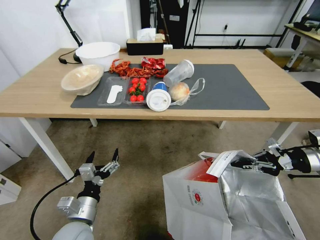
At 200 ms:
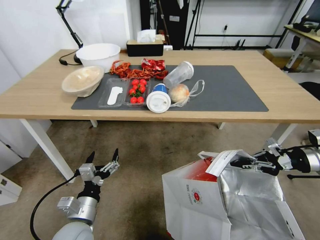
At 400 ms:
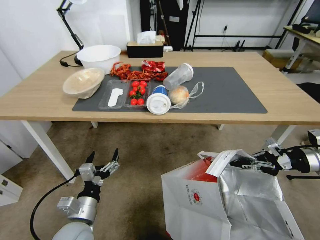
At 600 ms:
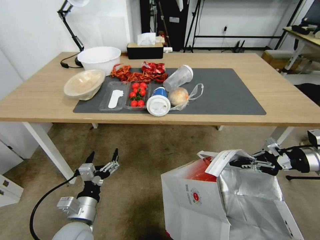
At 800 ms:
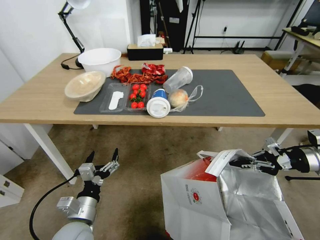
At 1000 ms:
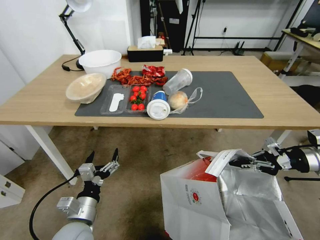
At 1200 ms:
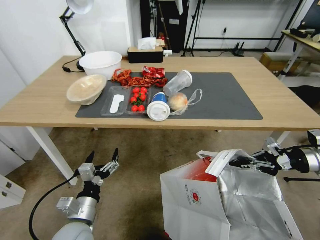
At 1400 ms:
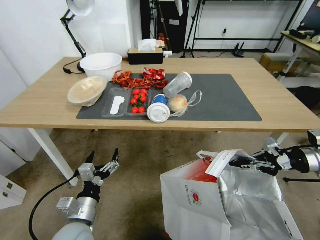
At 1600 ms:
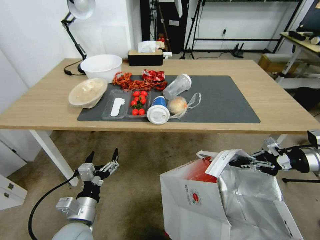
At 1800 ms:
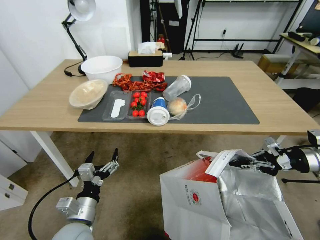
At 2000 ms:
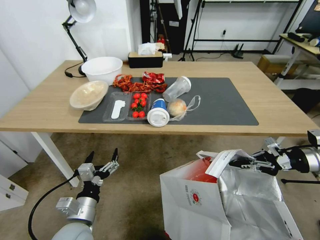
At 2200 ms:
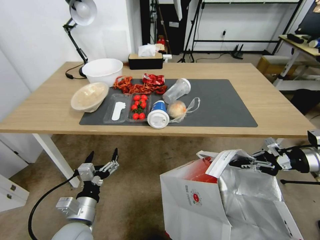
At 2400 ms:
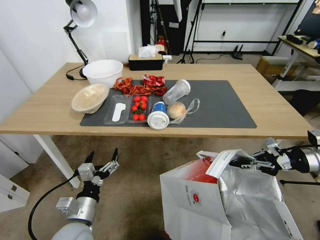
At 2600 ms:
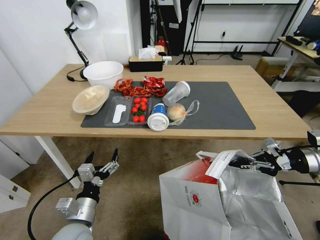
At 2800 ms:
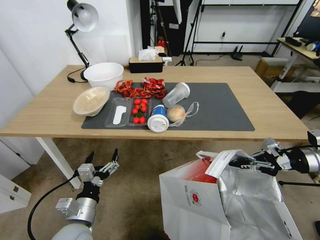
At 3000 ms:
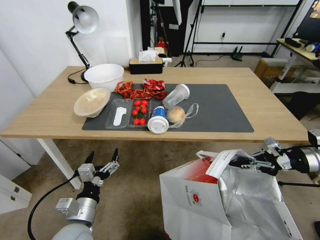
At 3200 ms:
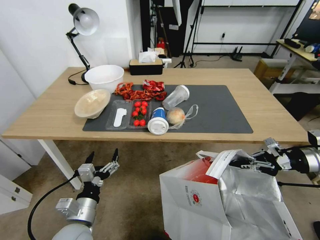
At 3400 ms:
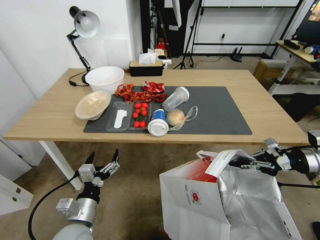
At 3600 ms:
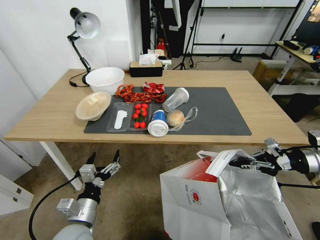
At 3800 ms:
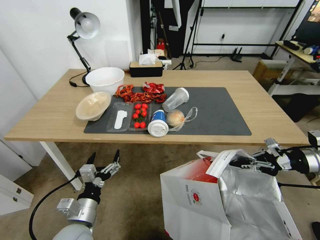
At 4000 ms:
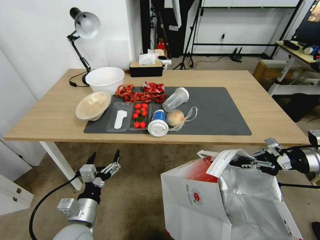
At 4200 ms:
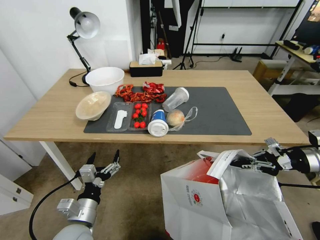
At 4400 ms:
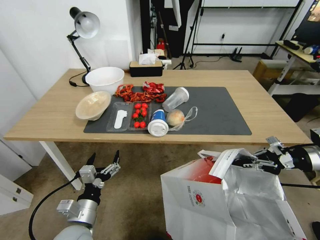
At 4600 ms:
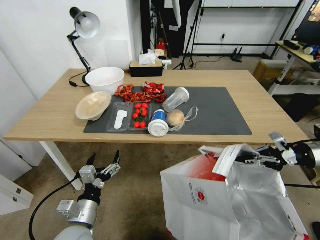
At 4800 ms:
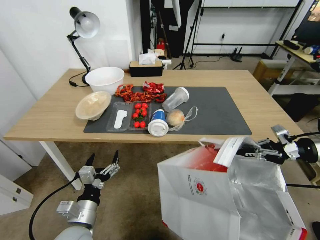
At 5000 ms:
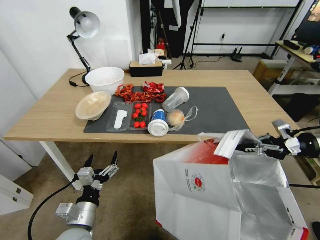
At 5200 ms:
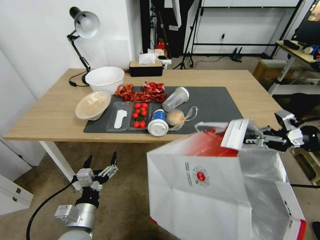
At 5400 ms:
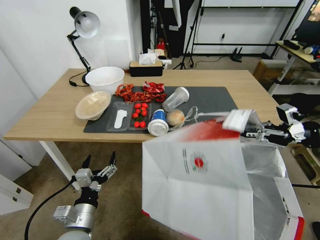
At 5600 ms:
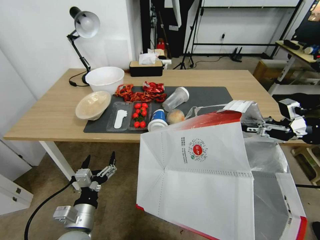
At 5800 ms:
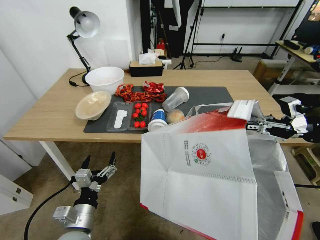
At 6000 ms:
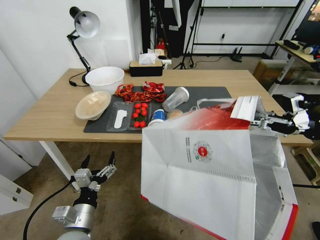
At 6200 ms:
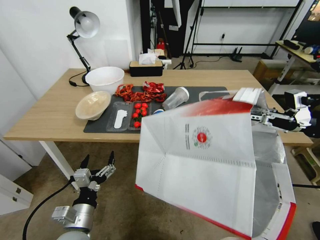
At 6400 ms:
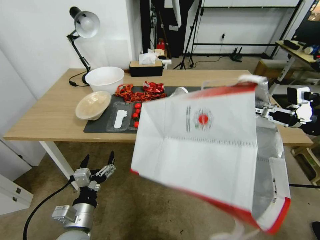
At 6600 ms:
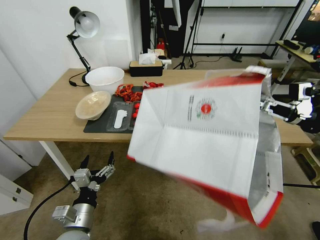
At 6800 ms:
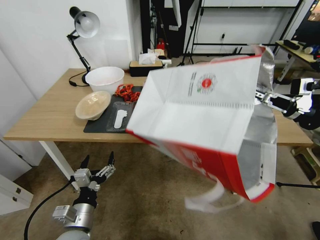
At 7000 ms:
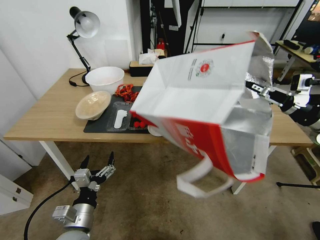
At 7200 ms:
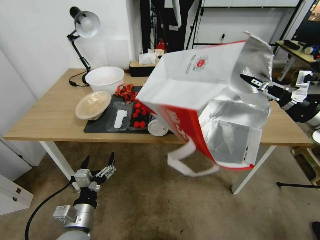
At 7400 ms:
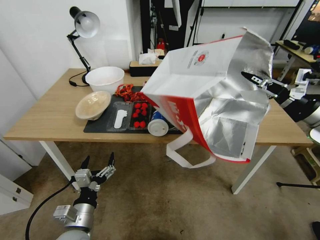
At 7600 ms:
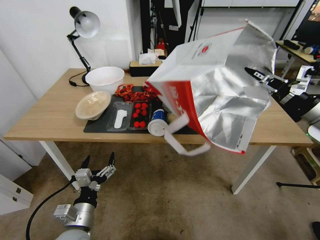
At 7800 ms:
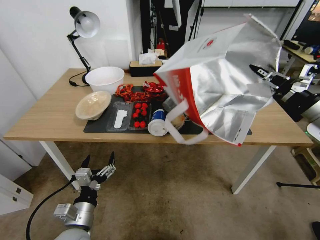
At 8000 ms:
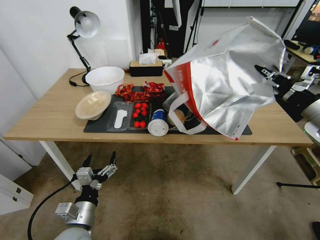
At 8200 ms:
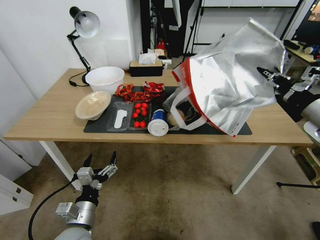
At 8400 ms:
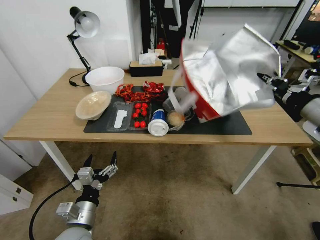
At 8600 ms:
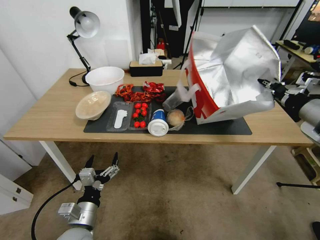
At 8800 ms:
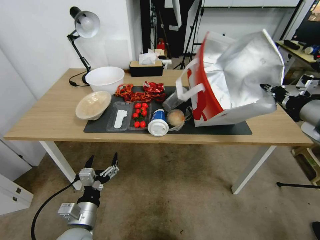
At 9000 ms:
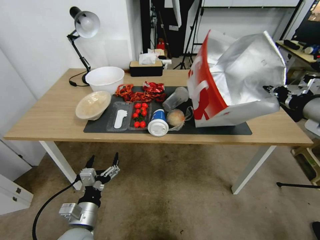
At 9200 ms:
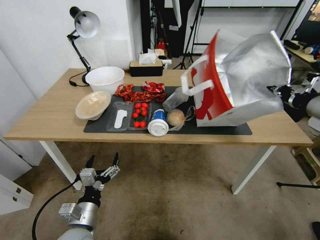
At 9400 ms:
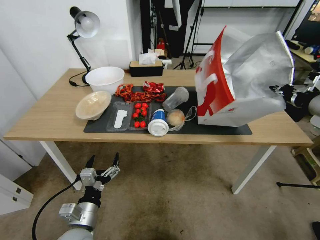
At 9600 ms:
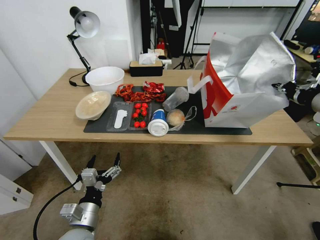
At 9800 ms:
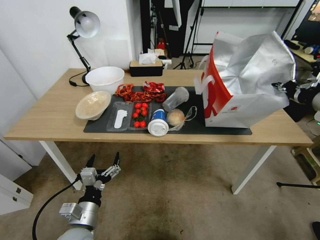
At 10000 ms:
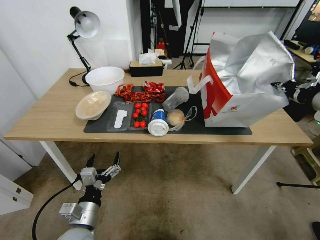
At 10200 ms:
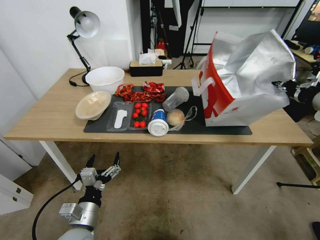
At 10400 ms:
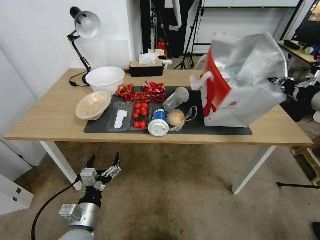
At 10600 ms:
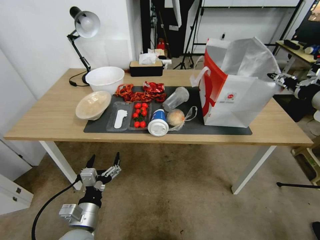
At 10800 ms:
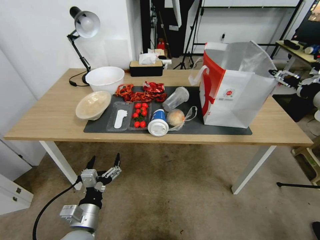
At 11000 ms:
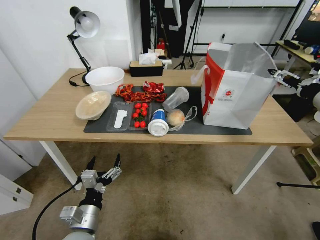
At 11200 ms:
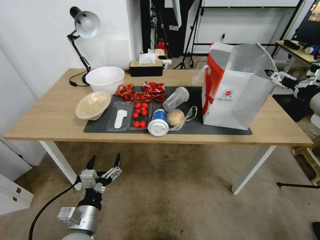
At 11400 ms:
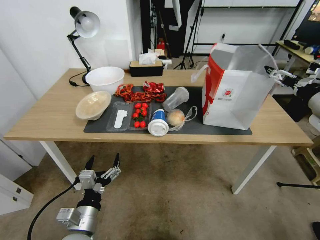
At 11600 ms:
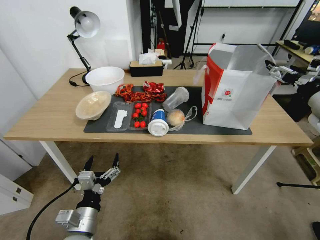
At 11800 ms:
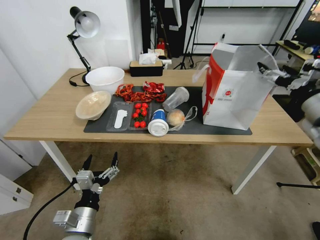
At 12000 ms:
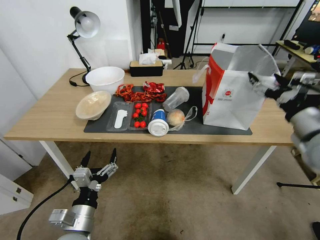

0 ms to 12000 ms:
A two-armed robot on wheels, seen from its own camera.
Task of the whole recording: Pick up the food delivery bag from the floor and place it on the table.
3000 ms to 4400 ms: Neither gripper changes place.
4400 ms to 6000 ms: The right gripper moves upward, some 10 cm.
7600 ms to 9000 ms: The right gripper shifts by approximately 5 cm.
9000 ms to 10400 ms: The grippers move only a little.
10400 ms to 12000 ms: The right gripper heads downward, covering approximately 10 cm, and opens.

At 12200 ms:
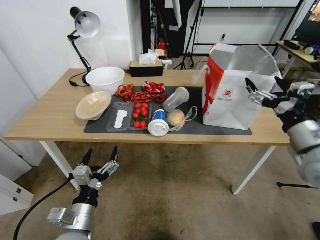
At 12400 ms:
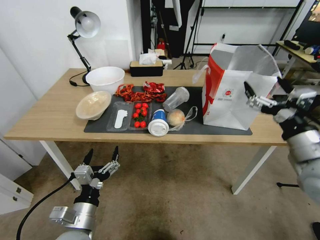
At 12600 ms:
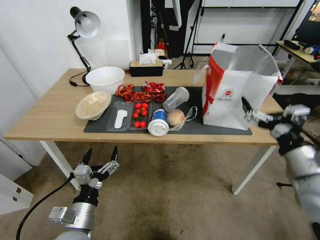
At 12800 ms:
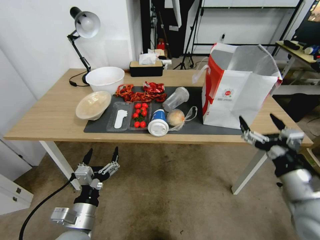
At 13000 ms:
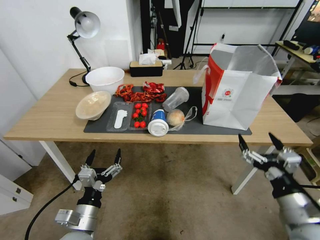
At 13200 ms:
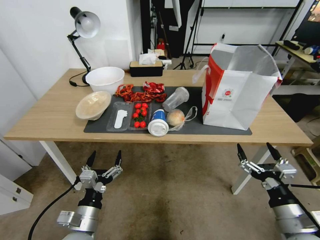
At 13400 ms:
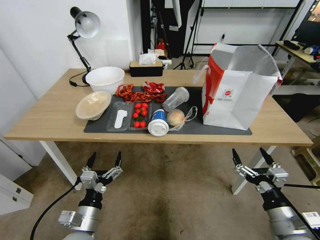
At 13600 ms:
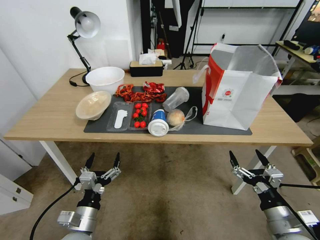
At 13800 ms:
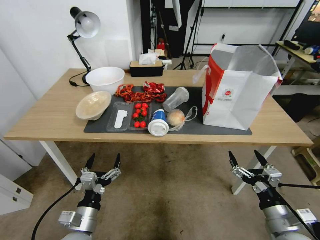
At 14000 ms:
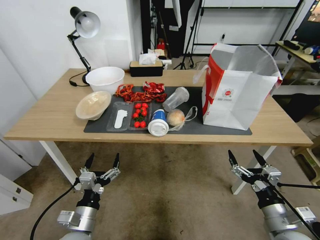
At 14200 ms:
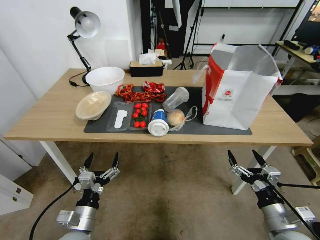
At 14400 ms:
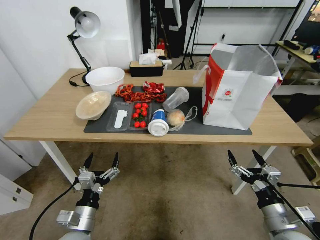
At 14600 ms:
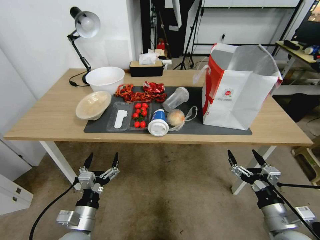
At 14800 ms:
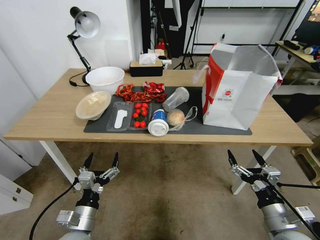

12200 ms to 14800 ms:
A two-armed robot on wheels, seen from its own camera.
Task of the whole recording: Pick up the food delivery bag from the floor and place it on the table.
12200 ms to 13400 ms: The right gripper goes roughly 20 cm downward and backward.
13400 ms to 14800 ms: The grippers make only small movements.

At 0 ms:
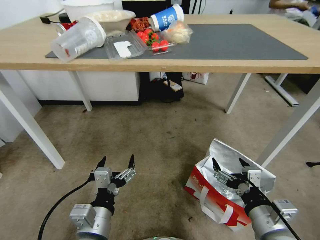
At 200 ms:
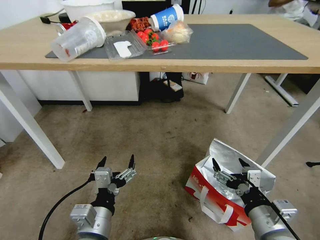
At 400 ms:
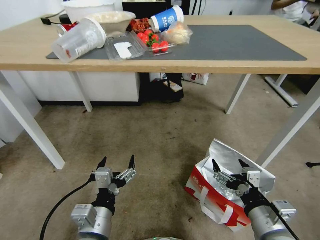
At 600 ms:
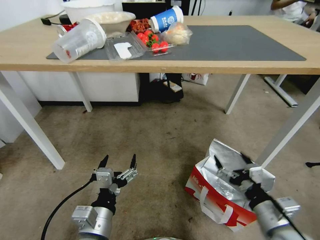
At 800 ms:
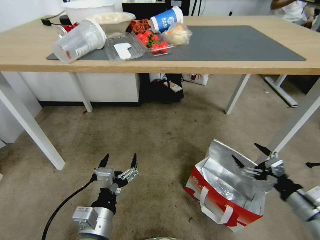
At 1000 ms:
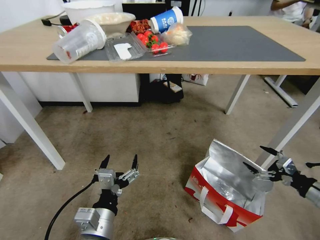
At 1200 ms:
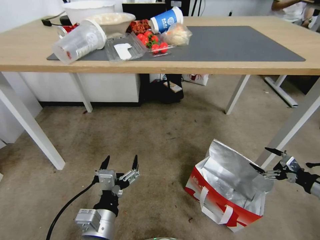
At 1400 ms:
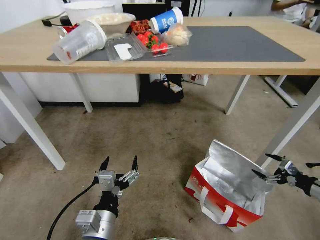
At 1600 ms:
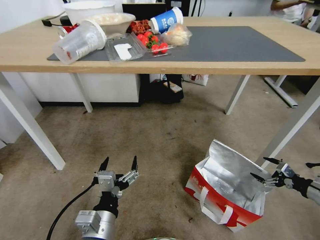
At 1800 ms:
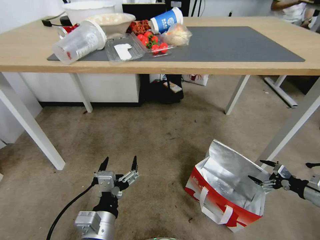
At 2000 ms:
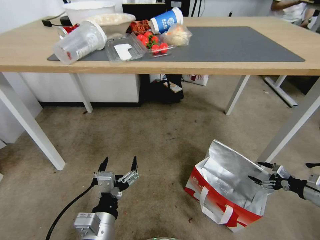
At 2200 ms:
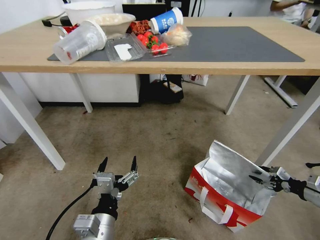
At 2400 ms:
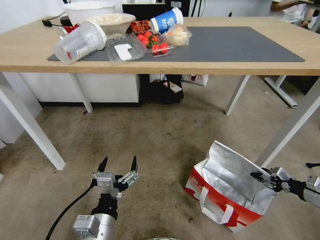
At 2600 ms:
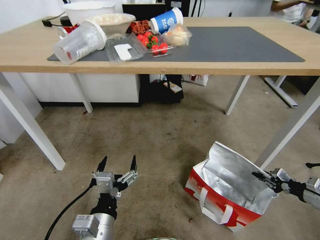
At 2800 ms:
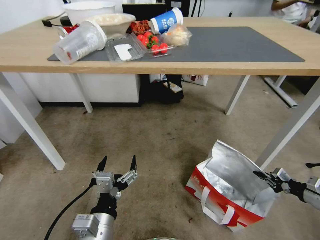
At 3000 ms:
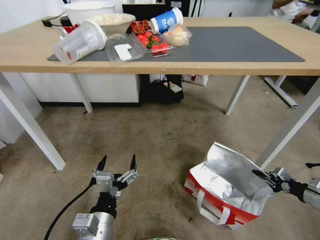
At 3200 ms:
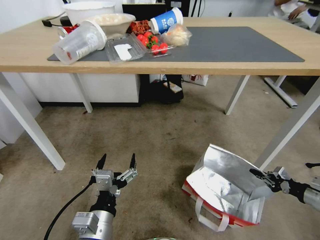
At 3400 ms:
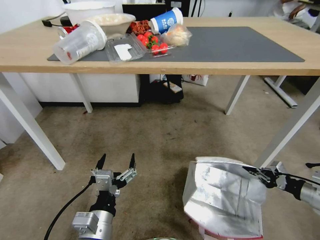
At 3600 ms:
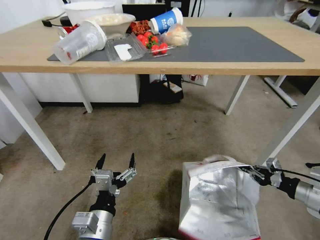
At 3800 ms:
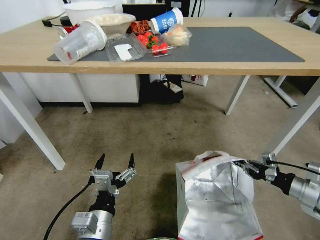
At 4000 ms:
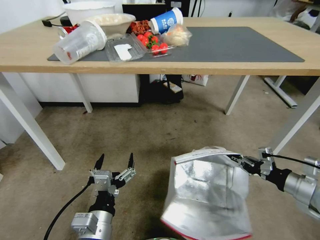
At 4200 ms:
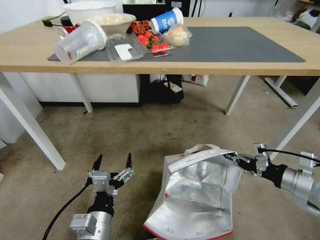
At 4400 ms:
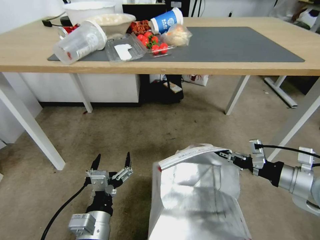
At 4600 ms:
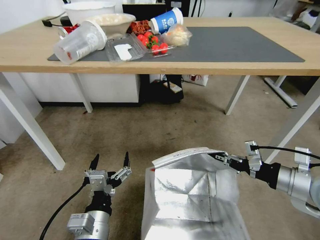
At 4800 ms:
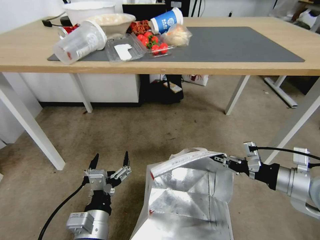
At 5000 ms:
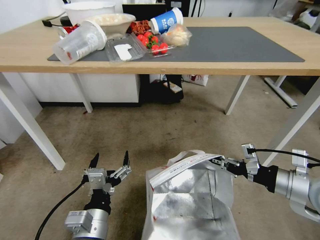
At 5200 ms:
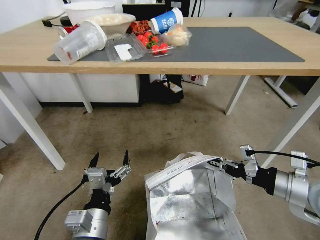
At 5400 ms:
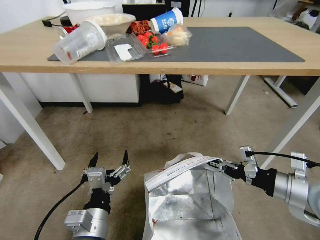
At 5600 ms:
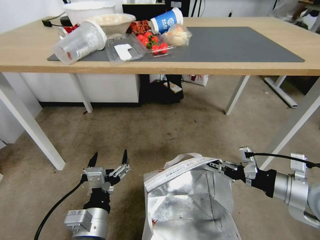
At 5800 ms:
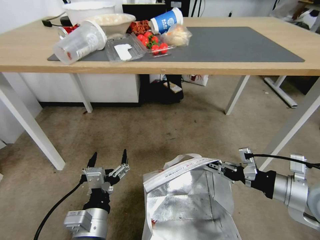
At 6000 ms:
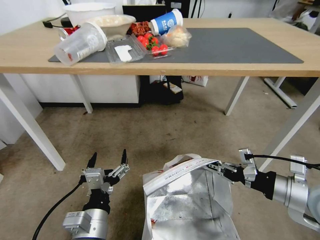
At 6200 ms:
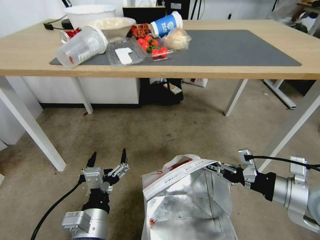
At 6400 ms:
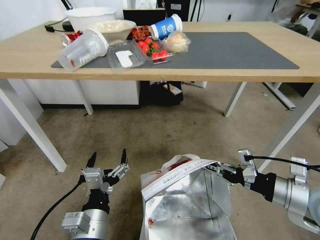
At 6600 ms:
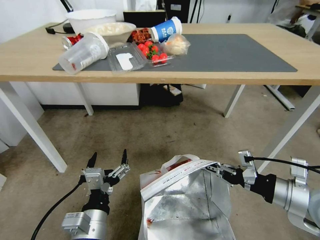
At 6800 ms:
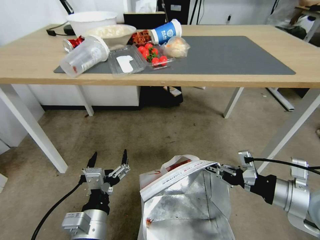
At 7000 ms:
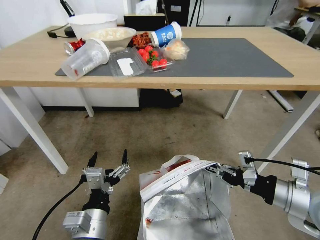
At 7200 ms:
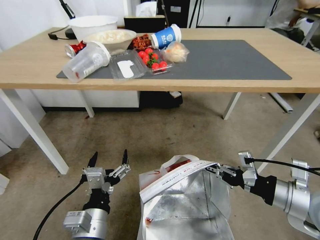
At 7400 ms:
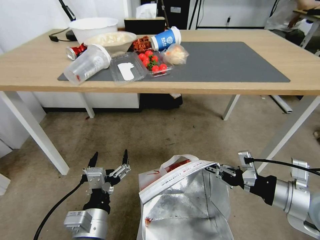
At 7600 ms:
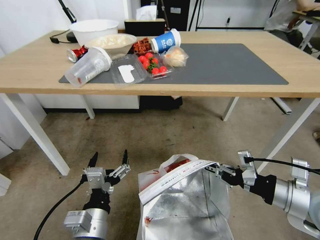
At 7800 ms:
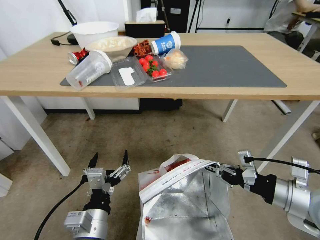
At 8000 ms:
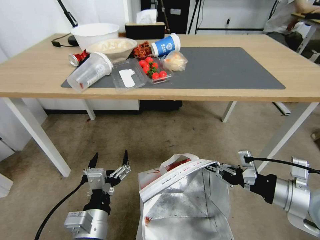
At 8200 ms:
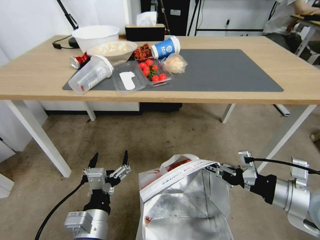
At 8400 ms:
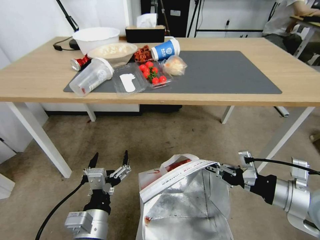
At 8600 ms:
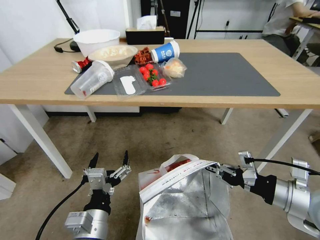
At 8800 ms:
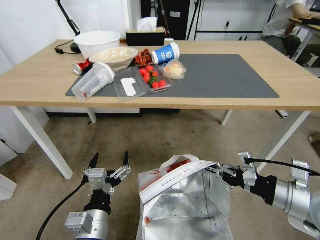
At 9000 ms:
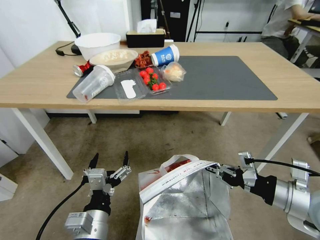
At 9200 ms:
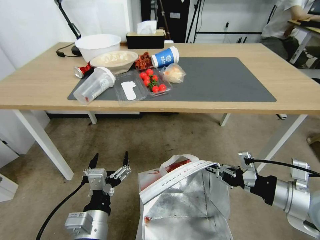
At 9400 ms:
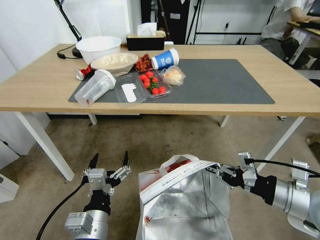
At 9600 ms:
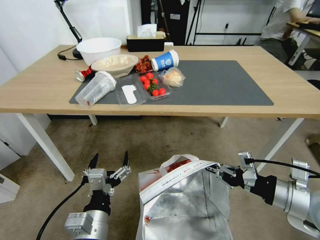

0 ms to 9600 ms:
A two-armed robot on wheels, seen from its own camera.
Task of the whole recording: Pick up the food delivery bag from the floor and place it on the table.
0 ms to 1600 ms: The right gripper goes approximately 30 cm to the right.
1600 ms to 3200 ms: The right gripper closes up.
3200 ms to 4800 ms: The right gripper travels to the left and upward by about 25 cm.